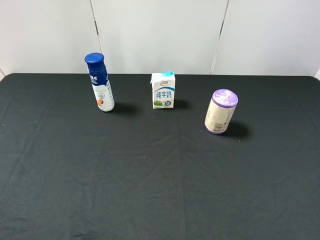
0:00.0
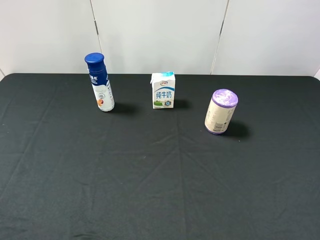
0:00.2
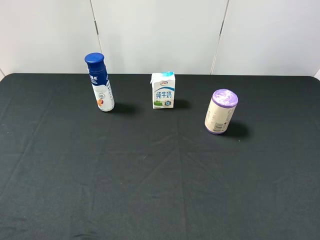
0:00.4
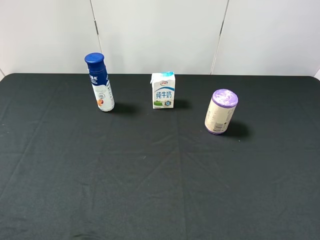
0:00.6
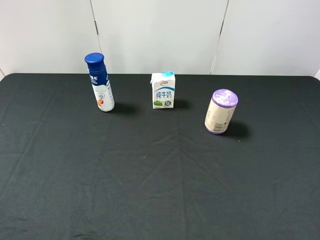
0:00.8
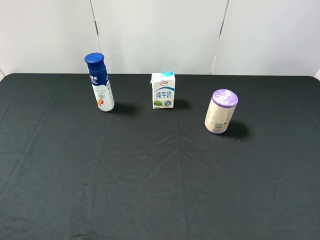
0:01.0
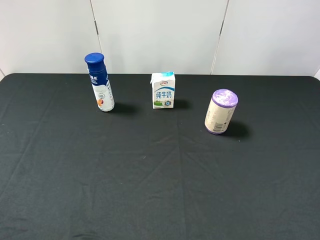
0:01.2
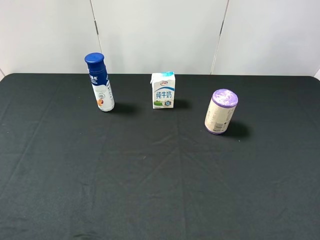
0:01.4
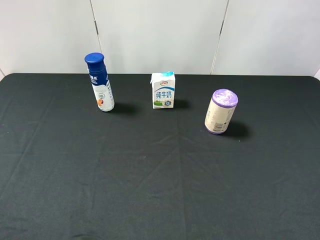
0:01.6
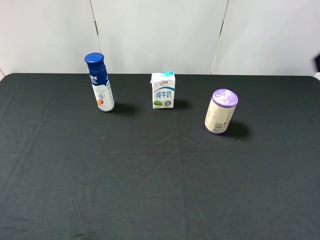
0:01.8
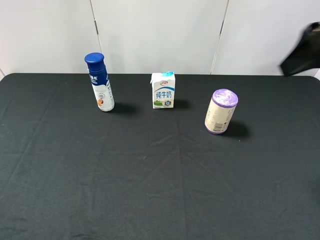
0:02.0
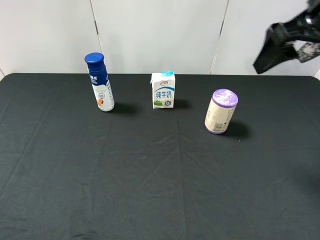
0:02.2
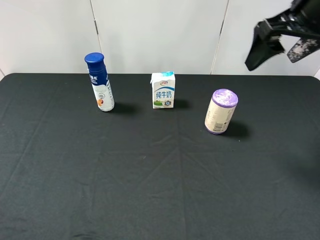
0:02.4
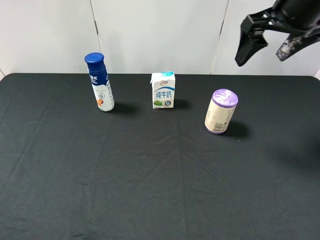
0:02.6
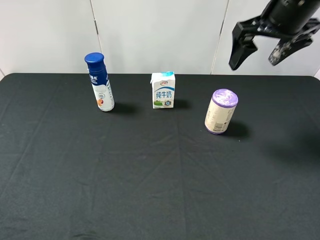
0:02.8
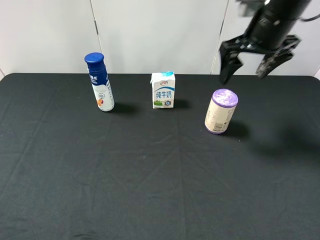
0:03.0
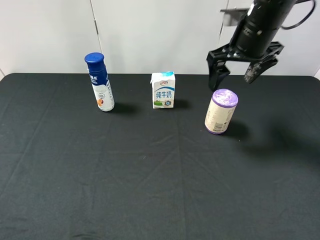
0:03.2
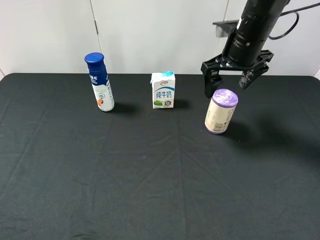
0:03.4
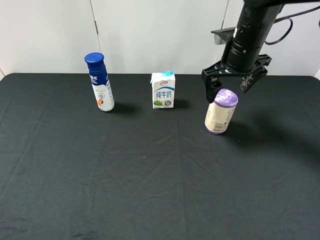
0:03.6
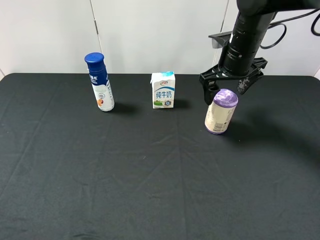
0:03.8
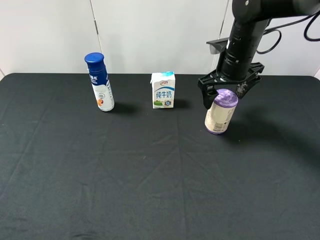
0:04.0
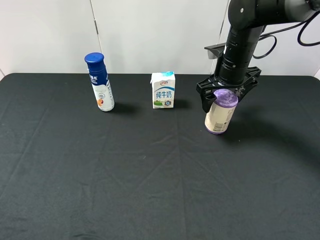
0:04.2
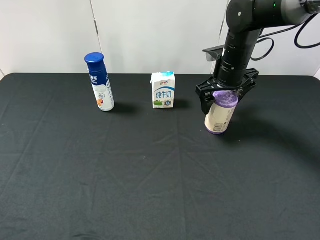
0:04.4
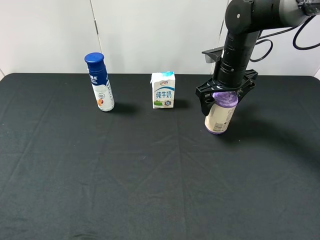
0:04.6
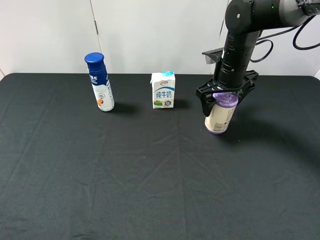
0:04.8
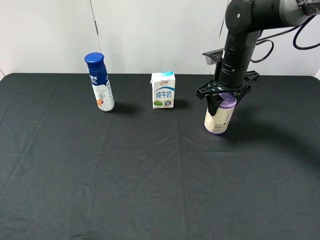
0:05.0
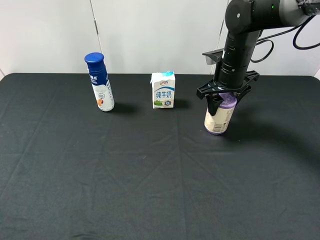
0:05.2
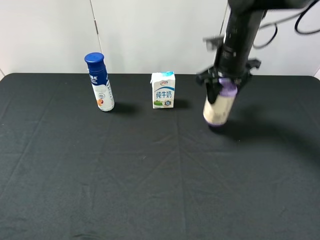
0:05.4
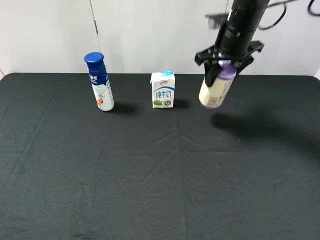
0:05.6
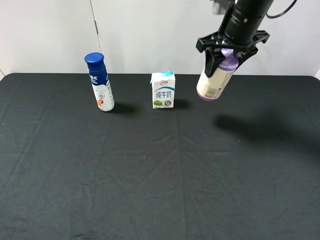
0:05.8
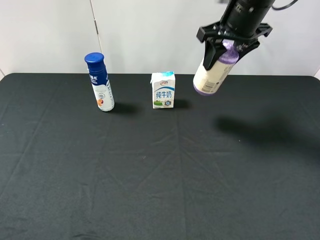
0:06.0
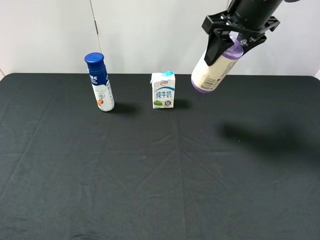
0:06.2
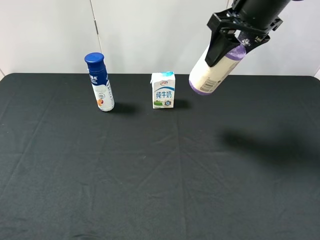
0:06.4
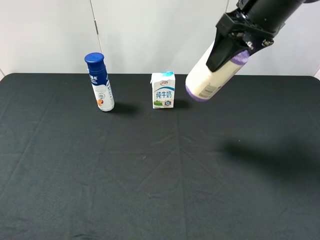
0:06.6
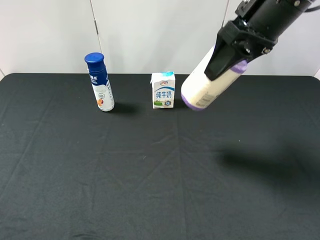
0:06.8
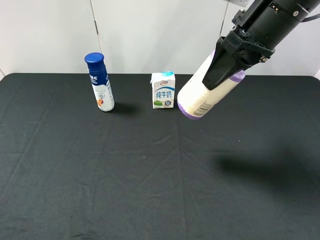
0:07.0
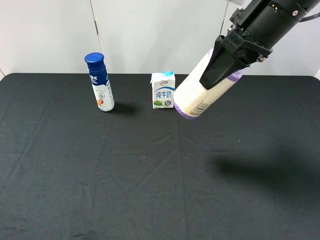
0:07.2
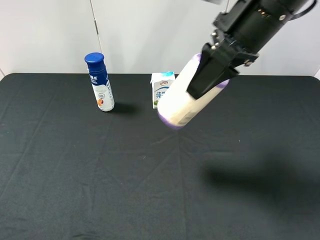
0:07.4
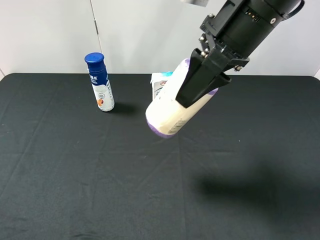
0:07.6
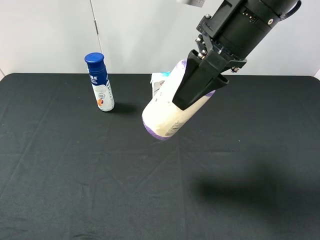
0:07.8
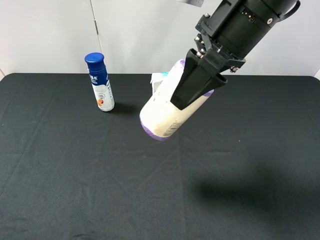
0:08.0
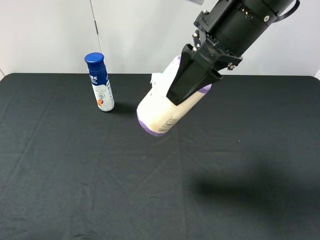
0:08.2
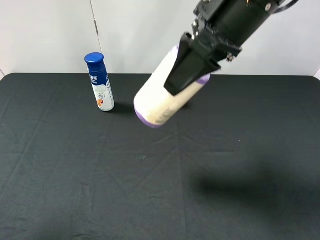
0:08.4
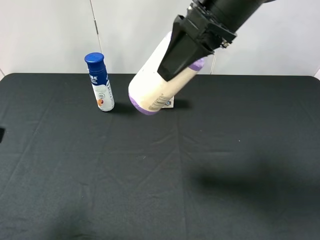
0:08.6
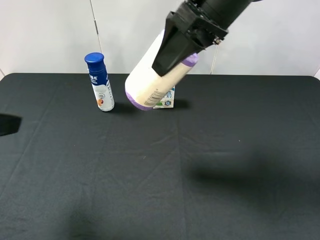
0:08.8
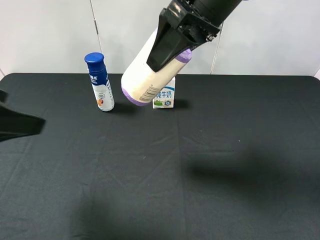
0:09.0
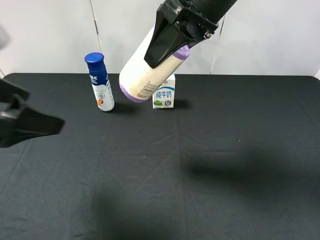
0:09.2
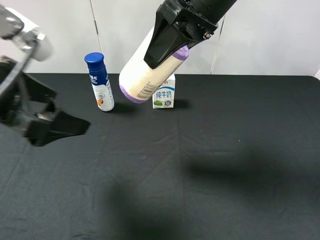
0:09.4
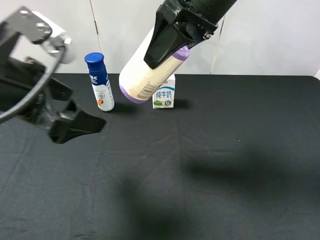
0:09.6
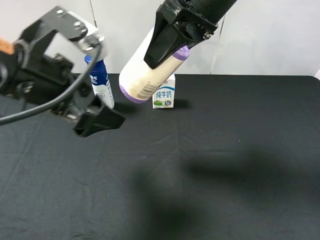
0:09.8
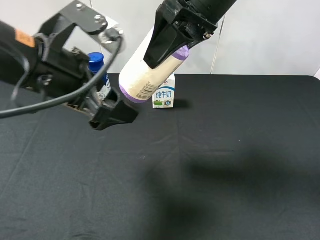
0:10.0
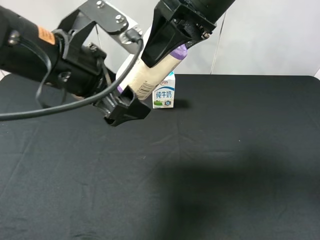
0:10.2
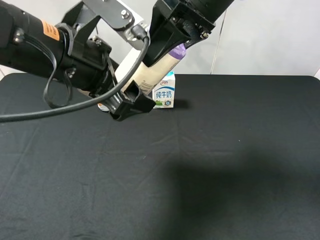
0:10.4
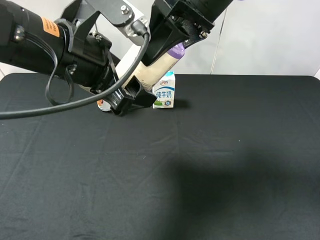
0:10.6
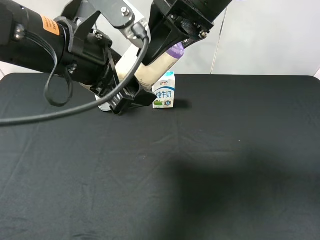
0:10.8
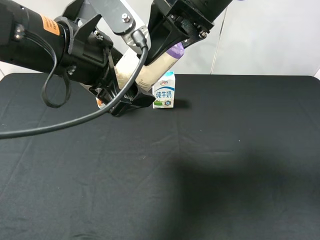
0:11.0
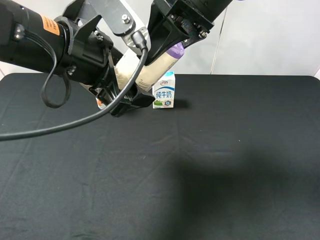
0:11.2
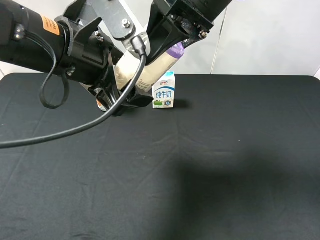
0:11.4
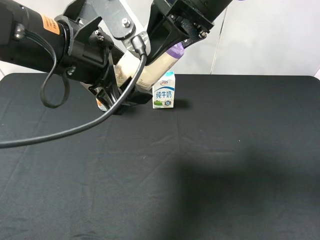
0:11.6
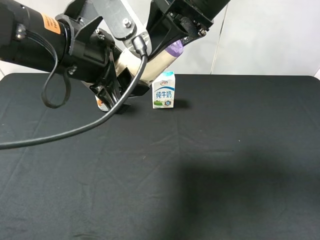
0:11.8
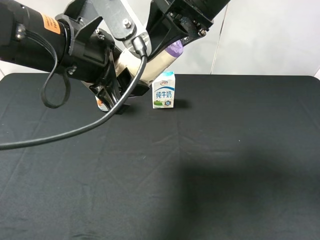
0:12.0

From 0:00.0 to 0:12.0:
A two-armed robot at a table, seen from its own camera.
Task of the whole recording: use the right gripper to pick up the item and transfer it from the right gripper to the left gripper.
Step, from 0:00.0 to 0:05.0: Use the right gripper to grab the purple garbage bag on the right side of the table.
From 0:01.6 to 0:03.0: The right gripper shifts approximately 25 cm forward and to the left.
From 0:03.0 to 0:04.4: The right gripper goes some 10 cm downward.
From 0:04.4 to 0:06.0: The right gripper heads upward, covering some 10 cm, and closes.
From 0:06.0 to 0:07.6: The right gripper goes roughly 10 cm backward.
From 0:07.6 to 0:09.0: The left gripper heads forward and to the right, covering approximately 15 cm.
From 0:09.0 to 0:10.4: The left gripper moves to the right and forward, approximately 15 cm.
From 0:10.4 to 0:12.0: The left gripper closes its fingers.

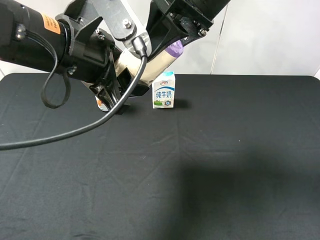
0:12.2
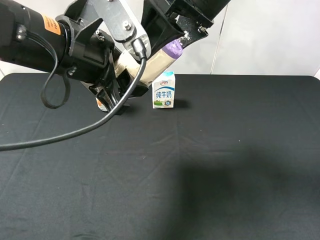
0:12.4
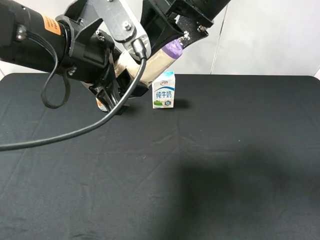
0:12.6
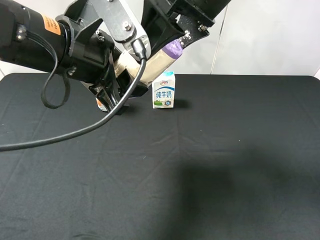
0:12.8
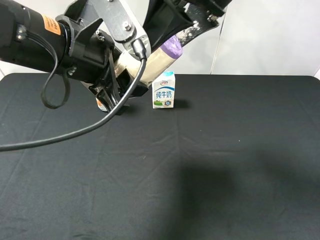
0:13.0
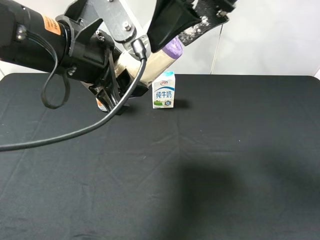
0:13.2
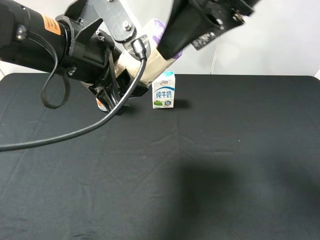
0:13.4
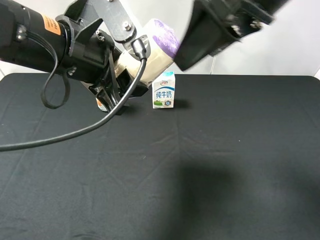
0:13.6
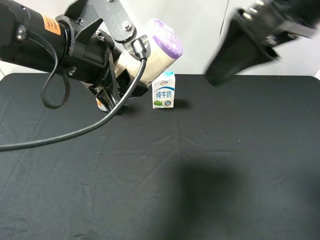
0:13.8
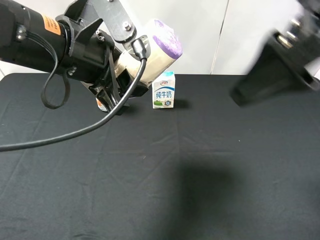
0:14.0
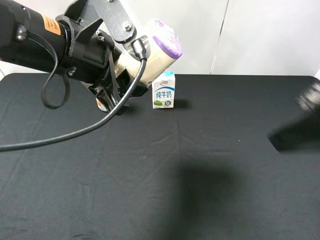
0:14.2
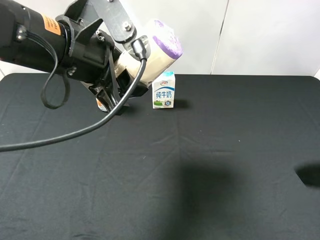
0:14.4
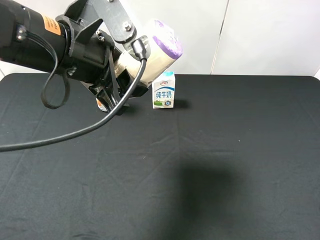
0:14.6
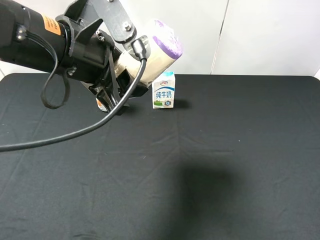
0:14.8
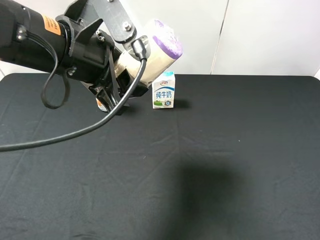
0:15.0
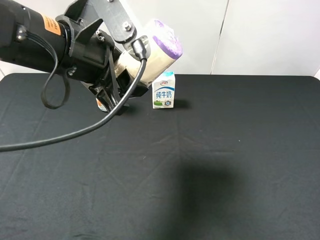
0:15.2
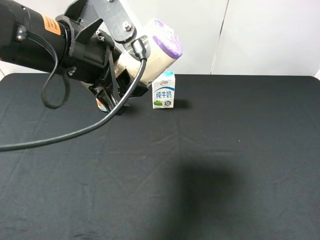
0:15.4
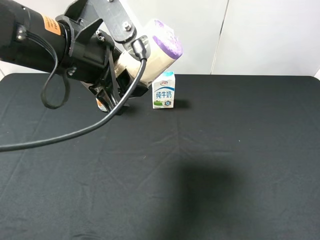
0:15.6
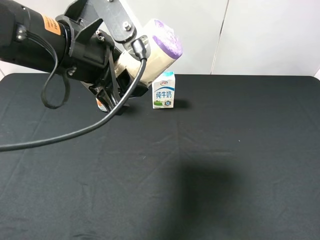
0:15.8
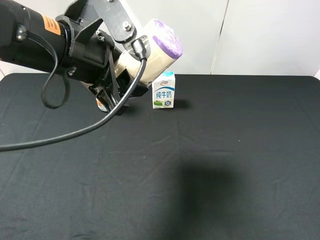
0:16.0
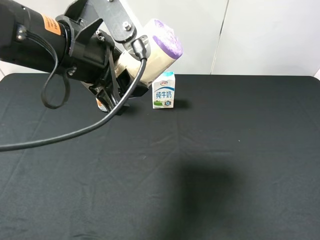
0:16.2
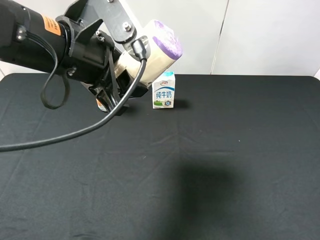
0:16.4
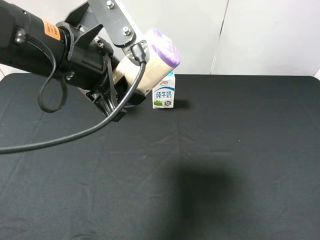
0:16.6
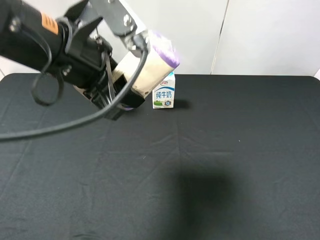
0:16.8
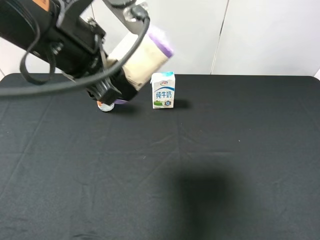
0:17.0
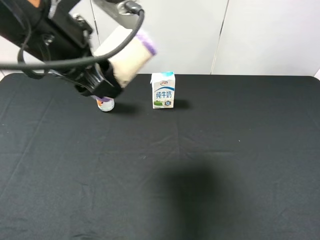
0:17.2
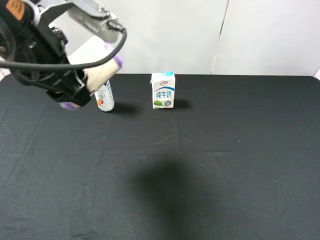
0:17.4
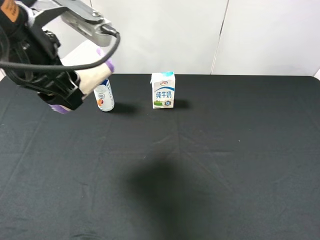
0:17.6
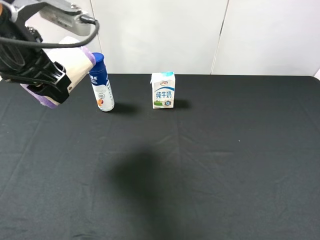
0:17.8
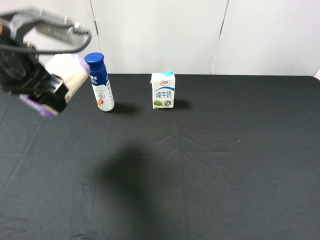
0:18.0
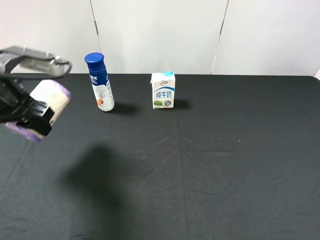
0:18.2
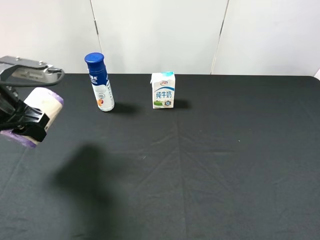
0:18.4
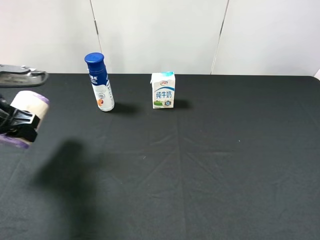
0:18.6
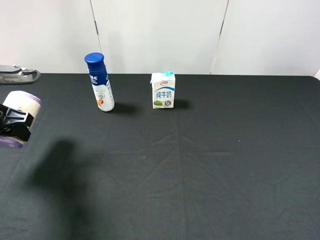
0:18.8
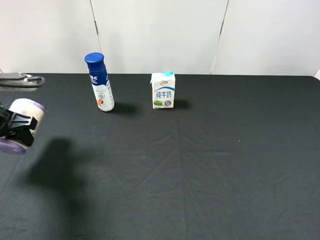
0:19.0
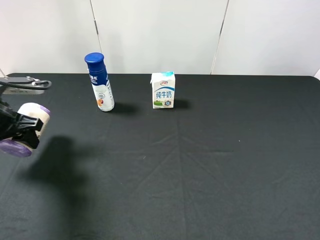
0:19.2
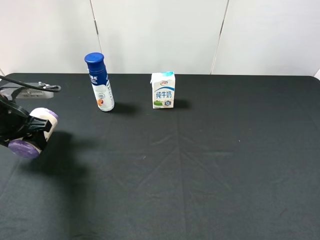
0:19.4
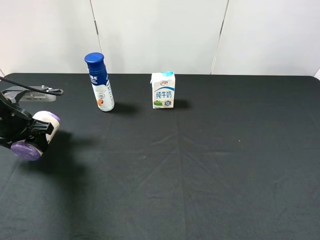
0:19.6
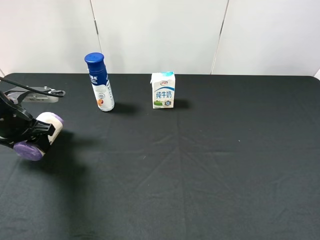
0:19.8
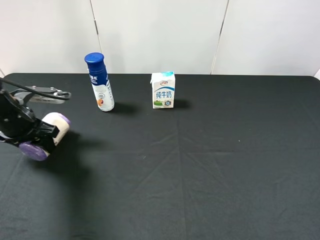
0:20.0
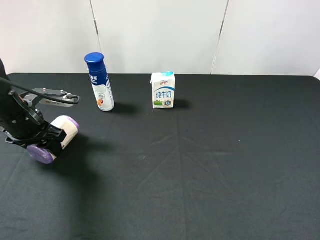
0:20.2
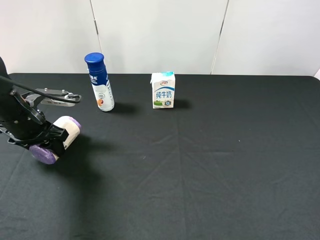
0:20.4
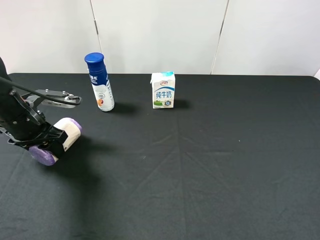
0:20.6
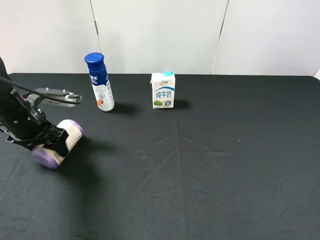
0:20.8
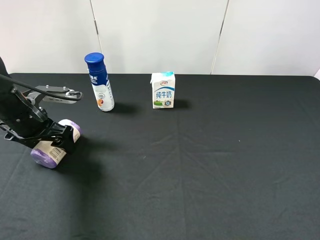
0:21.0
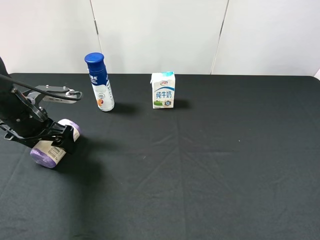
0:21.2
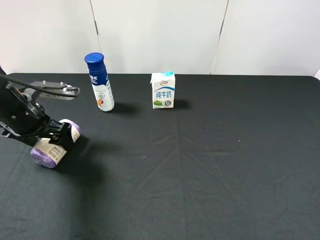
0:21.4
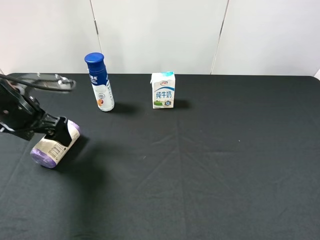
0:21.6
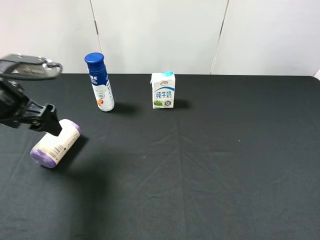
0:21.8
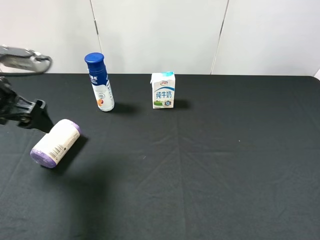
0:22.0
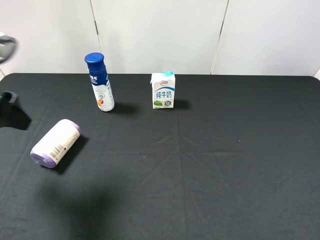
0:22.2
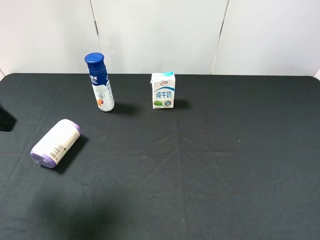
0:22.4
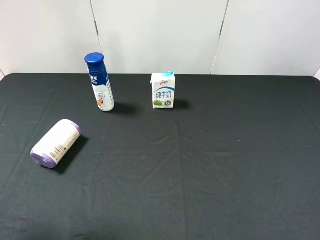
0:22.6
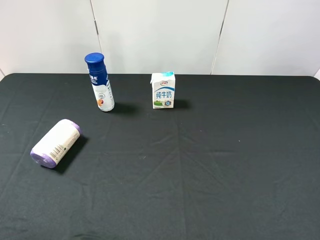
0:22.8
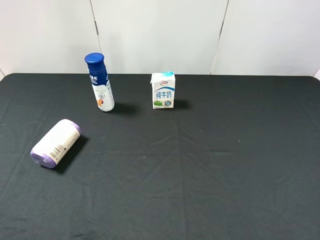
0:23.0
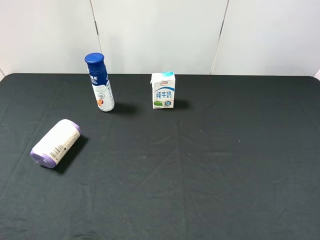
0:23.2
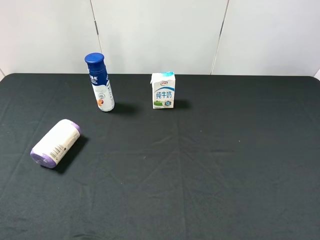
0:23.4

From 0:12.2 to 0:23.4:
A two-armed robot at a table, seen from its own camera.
Task of the whole recording: use the right gripper to pick up the item and transfer it from the right gripper to the left gripper.
Step, from 0:12.8 to 0:21.6: The left gripper places purple garbage bag on the left side of the table.
From 0:12.2 to 0:13.8: The right gripper is displaced backward and to the right by about 10 cm, and opens its fingers.
From 0:13.8 to 0:15.4: The right gripper goes approximately 25 cm backward, to the right and downward.
From 0:17.0 to 0:18.6: The left gripper heads to the left and downward, covering about 20 cm.
From 0:18.6 to 0:20.2: The left gripper heads downward, covering roughly 5 cm.
From 0:20.2 to 0:21.8: The left gripper goes approximately 10 cm upward, and opens.
From 0:21.8 to 0:23.4: The left gripper moves backward, approximately 25 cm.
